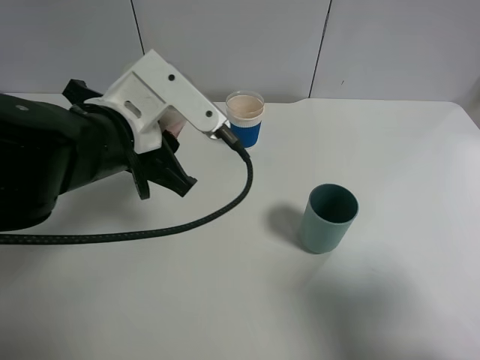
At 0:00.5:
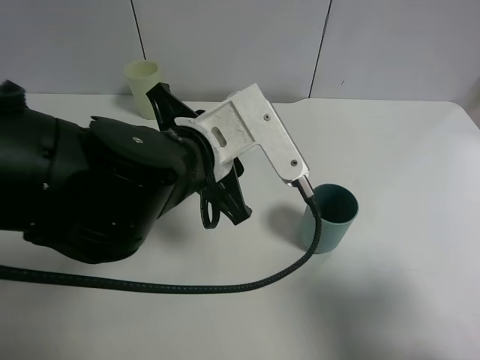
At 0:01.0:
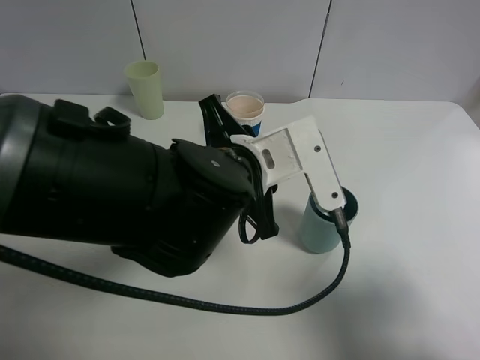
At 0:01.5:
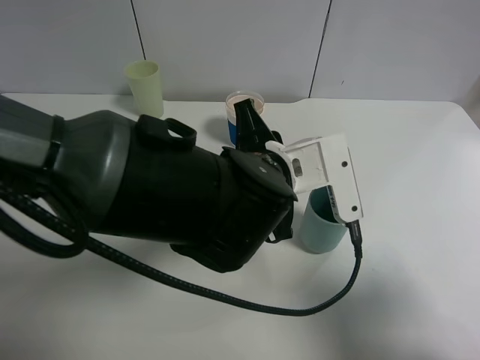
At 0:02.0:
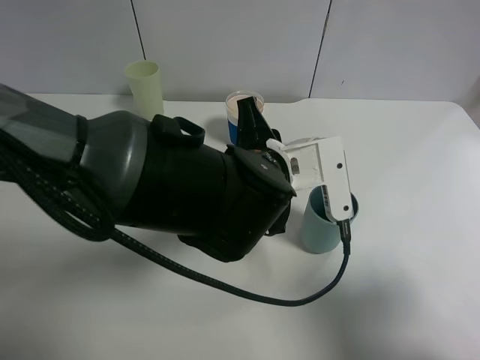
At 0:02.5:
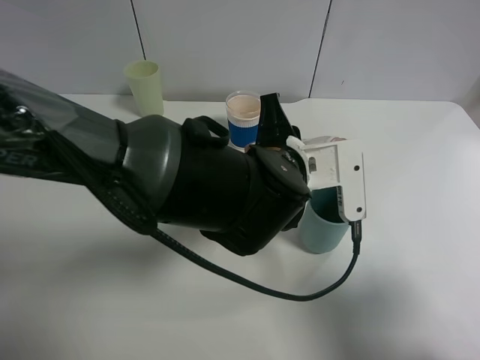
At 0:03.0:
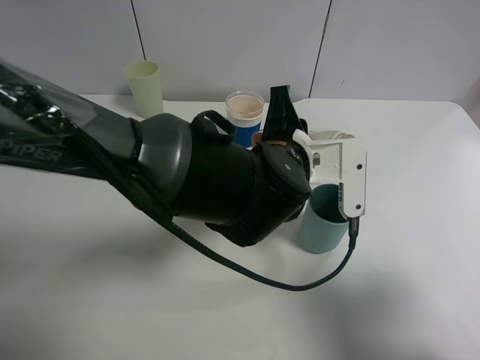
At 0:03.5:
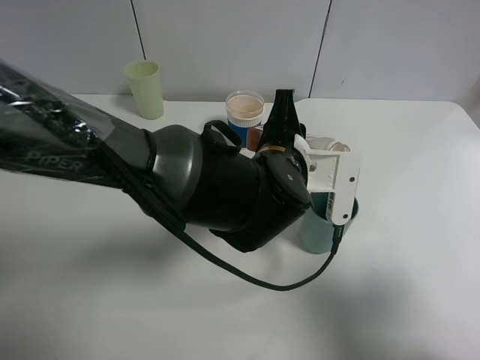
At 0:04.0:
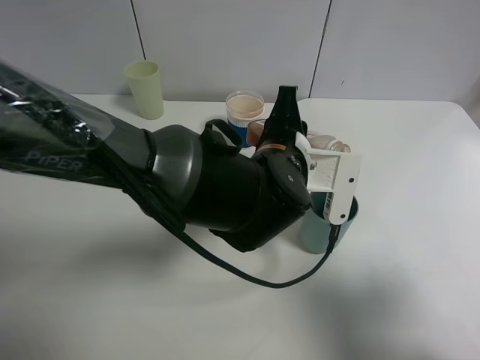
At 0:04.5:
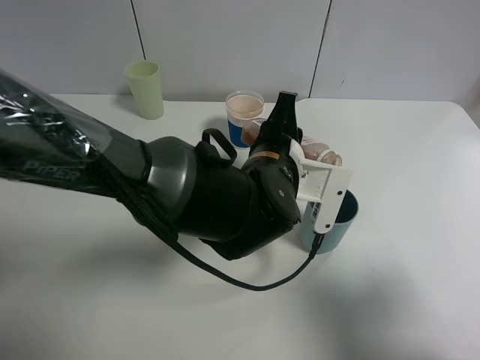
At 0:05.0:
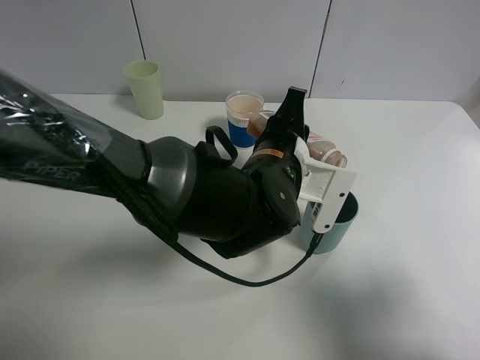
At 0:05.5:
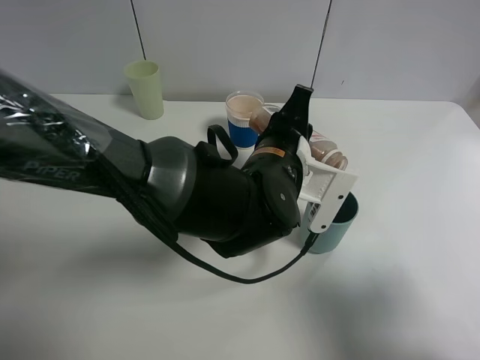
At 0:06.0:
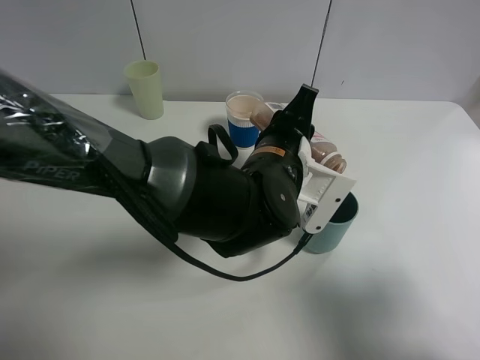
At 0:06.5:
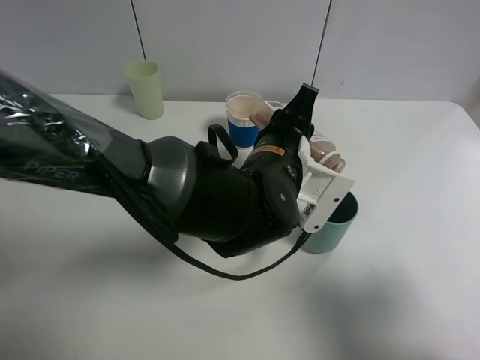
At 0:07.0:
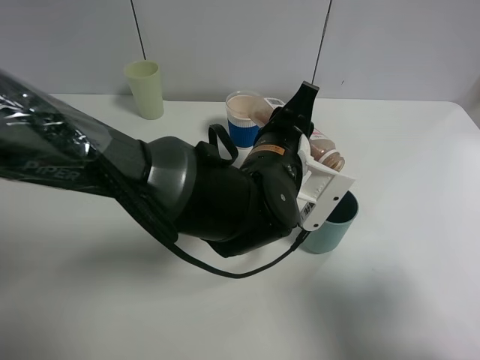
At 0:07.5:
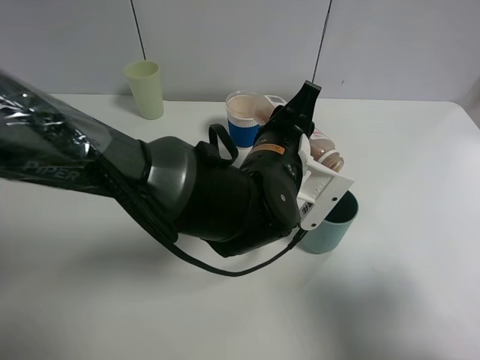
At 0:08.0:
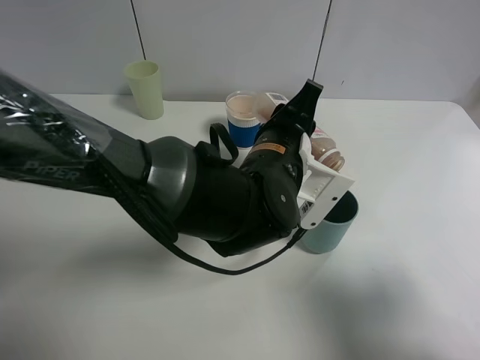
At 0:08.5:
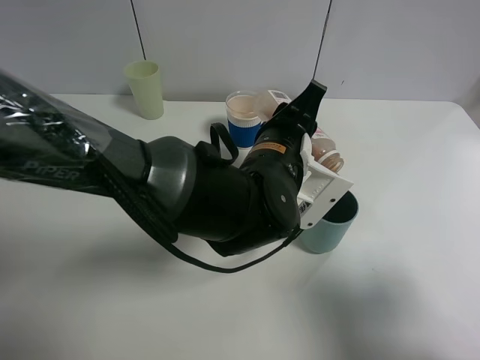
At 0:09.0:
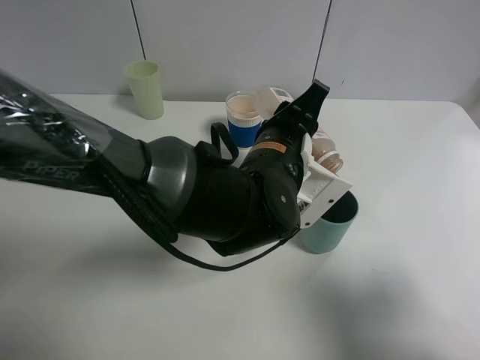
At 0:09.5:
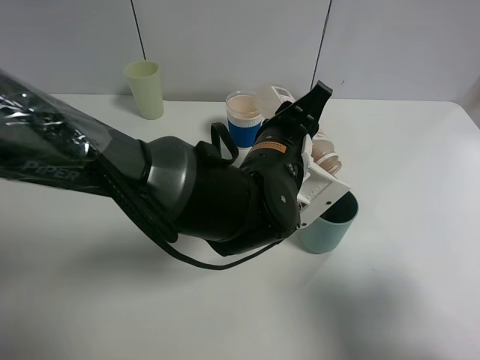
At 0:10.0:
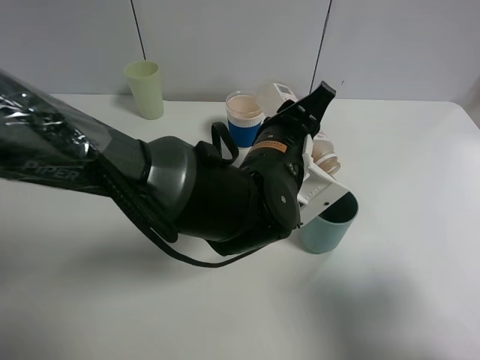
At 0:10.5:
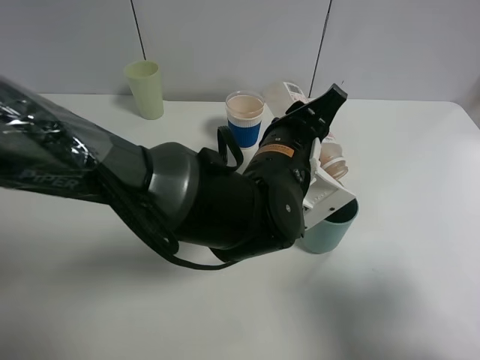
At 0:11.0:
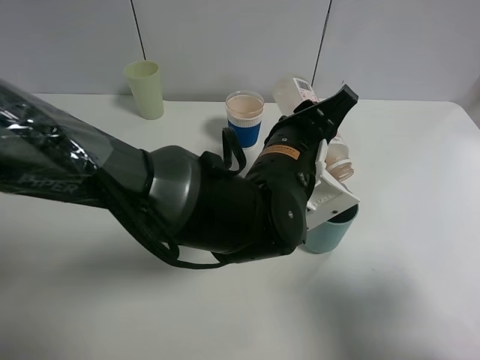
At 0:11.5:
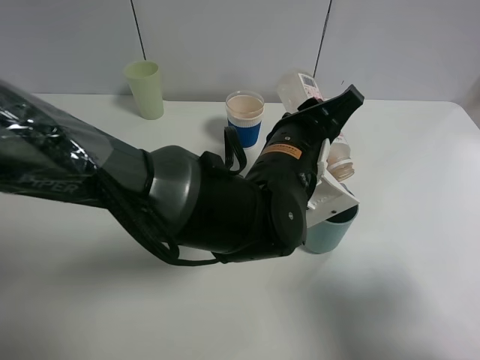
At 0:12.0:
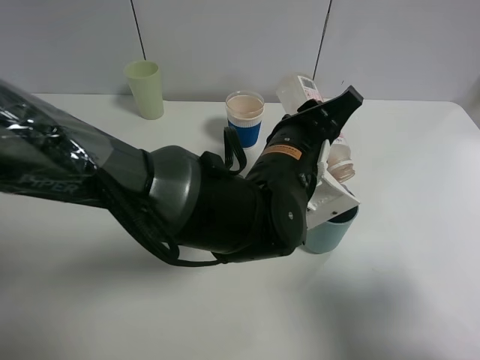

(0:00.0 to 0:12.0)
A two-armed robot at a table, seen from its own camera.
Task of the whole recording: use a clamp to hold the bottle of the drink, pour the beverage into a random cup, then clamp the cup containing the drink and pour the drink into another random cup.
0:00.0 - 0:02.0: The left gripper travels to the right by some 15 cm.
0:04.0 - 0:06.0: The grippers stay close to where they were, moving slightly.
0:06.0 - 0:10.0: The grippers make only small movements.
0:10.0 - 0:12.0: The grippers move only a little.

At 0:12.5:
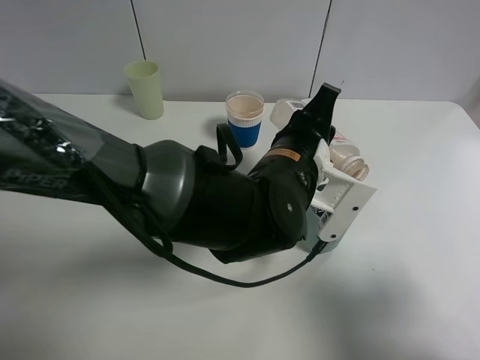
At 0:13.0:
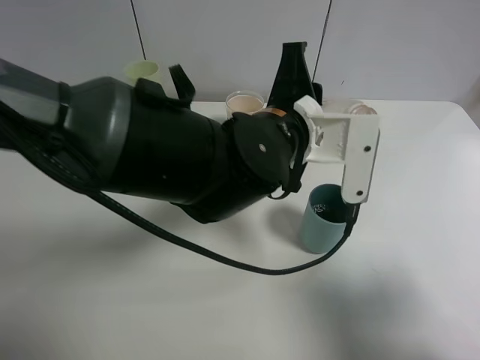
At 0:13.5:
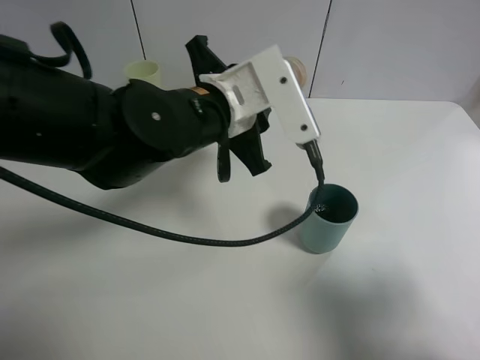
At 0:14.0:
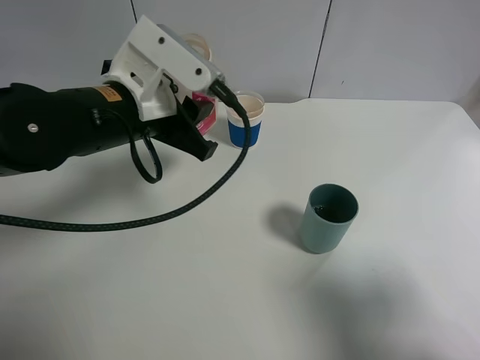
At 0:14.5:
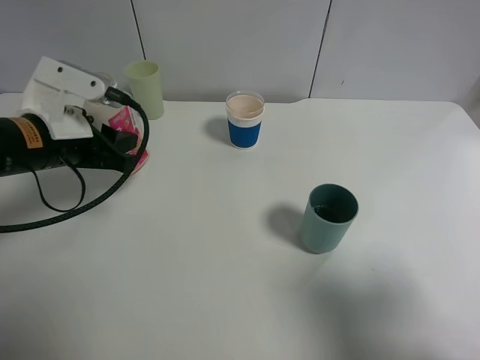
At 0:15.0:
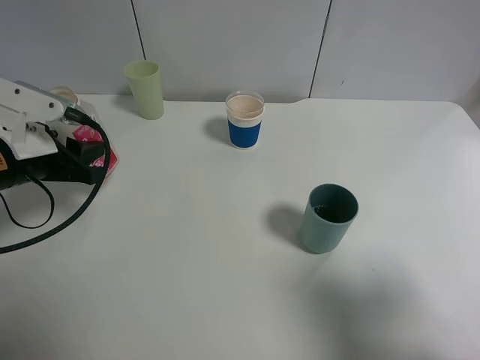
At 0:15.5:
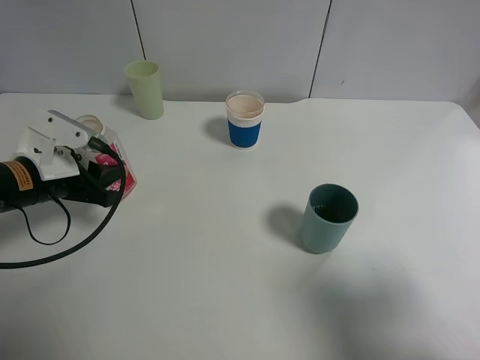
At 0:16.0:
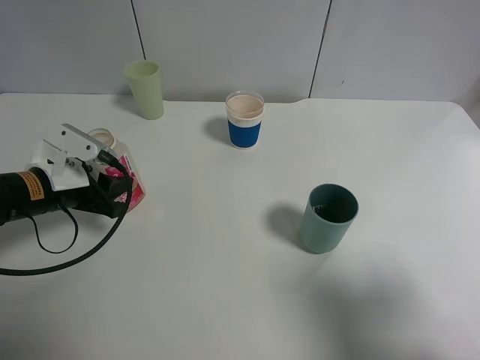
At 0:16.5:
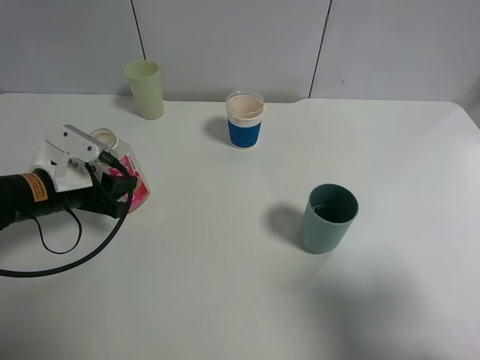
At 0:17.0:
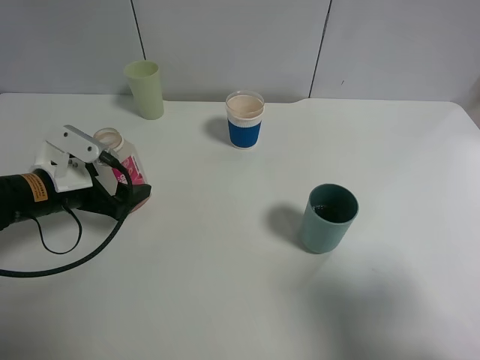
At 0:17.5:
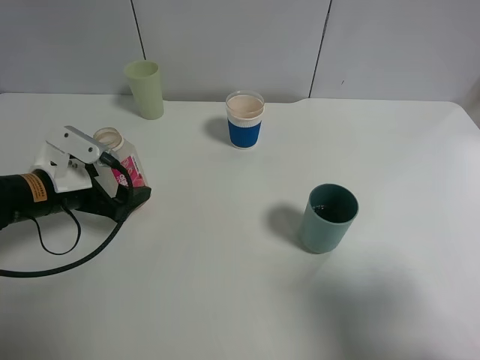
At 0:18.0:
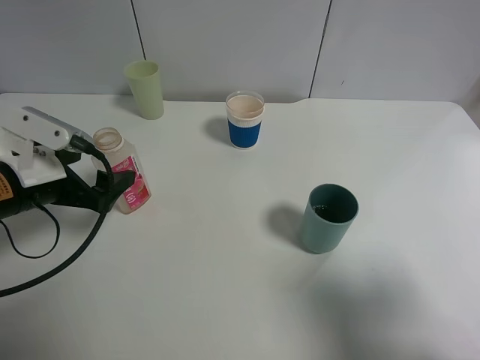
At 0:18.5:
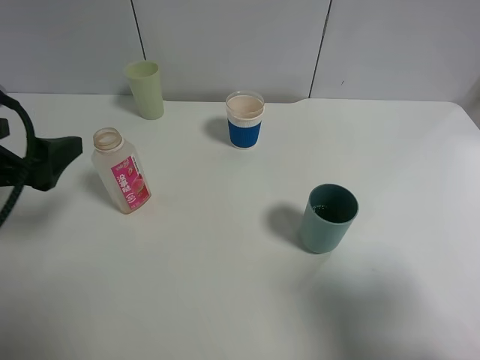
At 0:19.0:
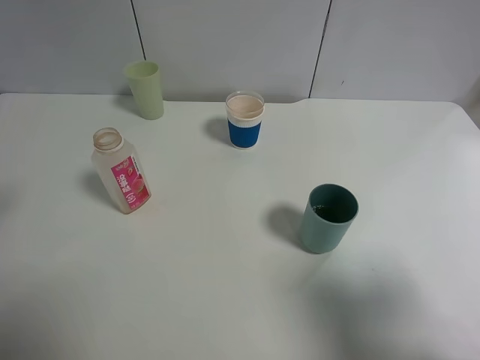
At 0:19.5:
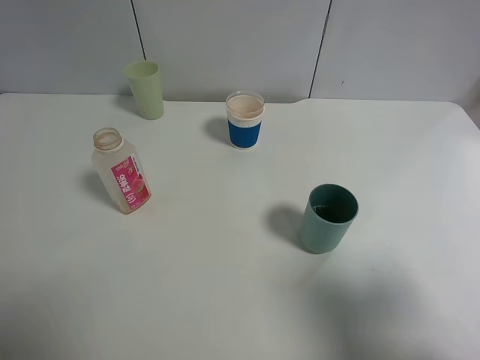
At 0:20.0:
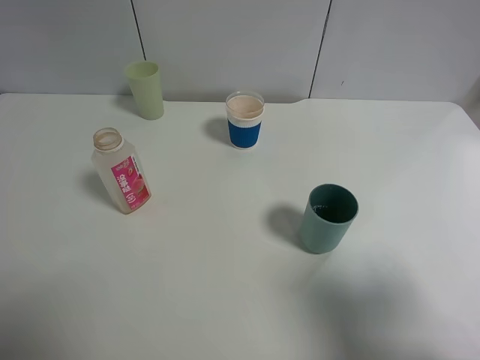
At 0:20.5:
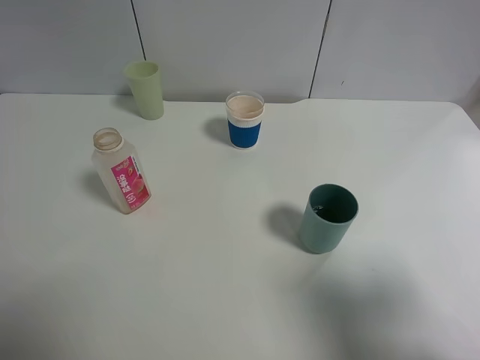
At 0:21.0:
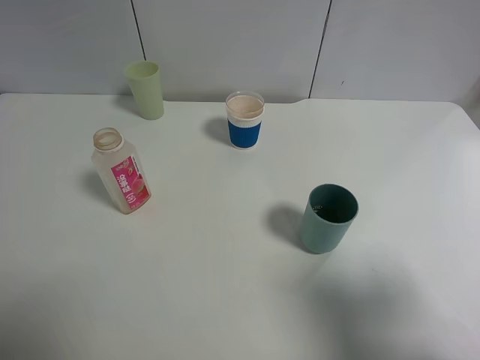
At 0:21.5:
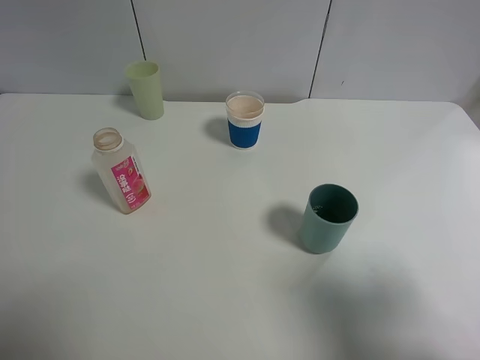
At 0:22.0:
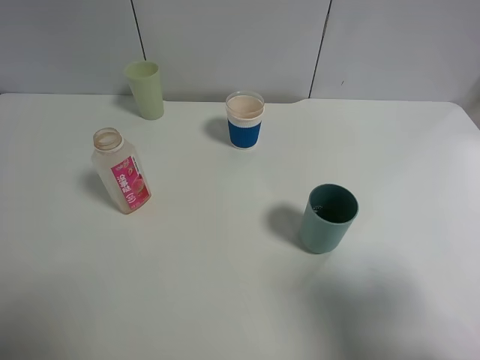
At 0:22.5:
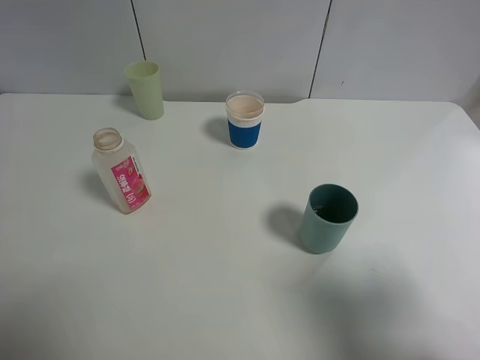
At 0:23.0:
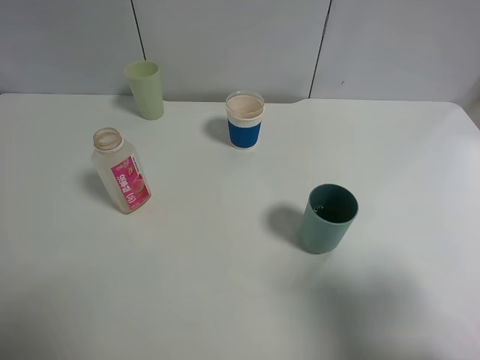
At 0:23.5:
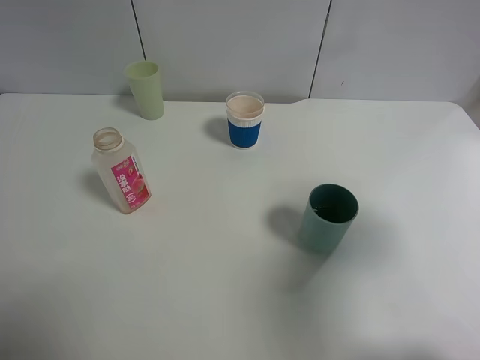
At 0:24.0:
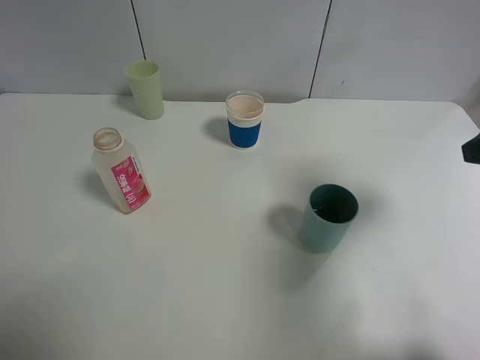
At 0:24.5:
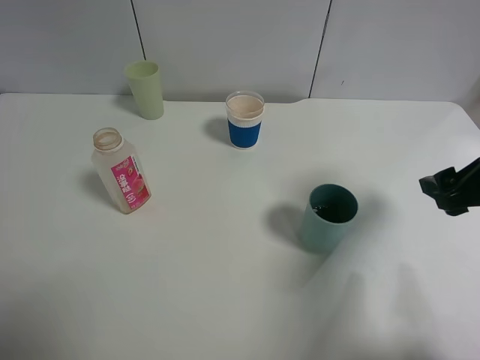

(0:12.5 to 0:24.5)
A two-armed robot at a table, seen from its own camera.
Task of the whole recording: use a clamp to hold the bottle of the drink, pour the beverage into a random cup, then clamp the cup containing the drink and pour the drink into another random cup.
Step, 0:13.0 - 0:18.0: Place the drink bottle on the table with left gripper.
0:12.5 - 0:14.5: The left gripper is displaced to the left by some 25 cm.
0:14.5 - 0:16.5: The left gripper heads downward, covering roughly 10 cm.
0:16.5 - 0:18.5: The left gripper heads upward and backward, covering some 15 cm, and opens its fingers.
0:18.5 - 0:20.5: The left gripper is displaced backward and upward by approximately 20 cm.
0:22.5 - 0:24.5: The right gripper is displaced forward by some 15 cm.

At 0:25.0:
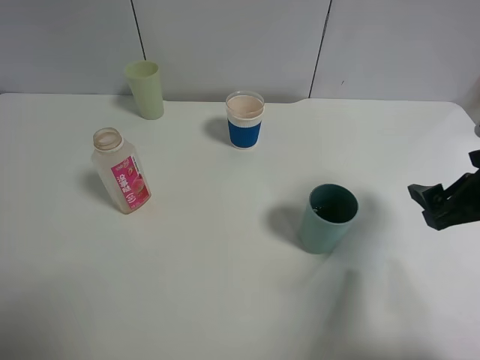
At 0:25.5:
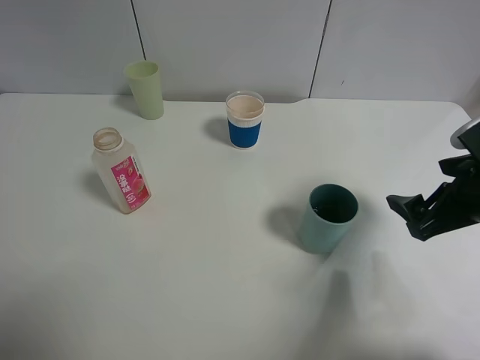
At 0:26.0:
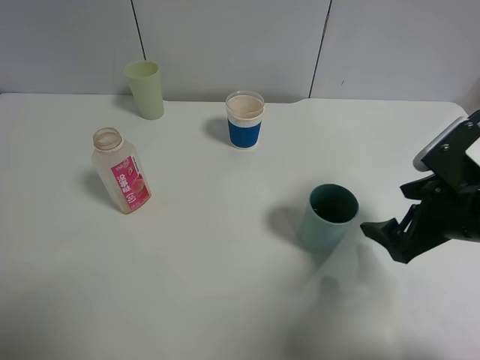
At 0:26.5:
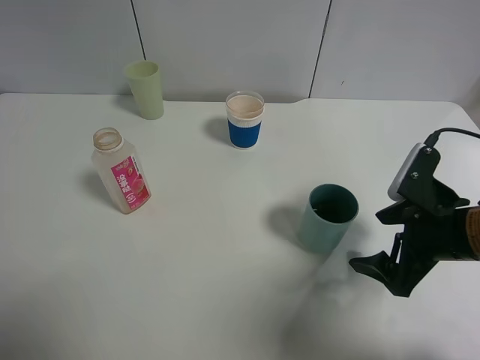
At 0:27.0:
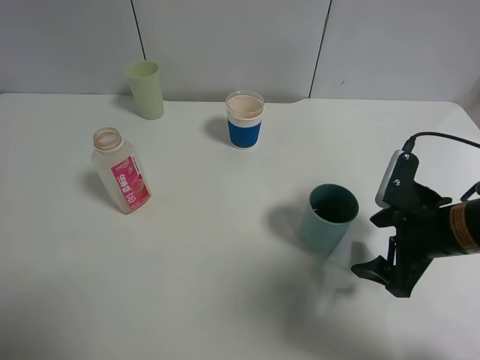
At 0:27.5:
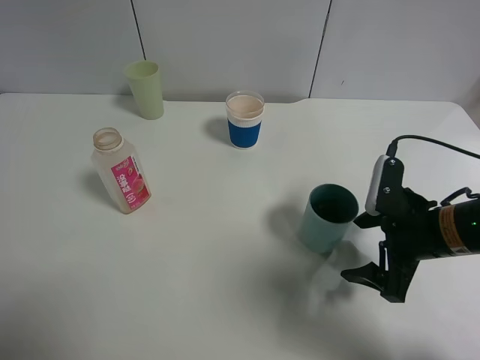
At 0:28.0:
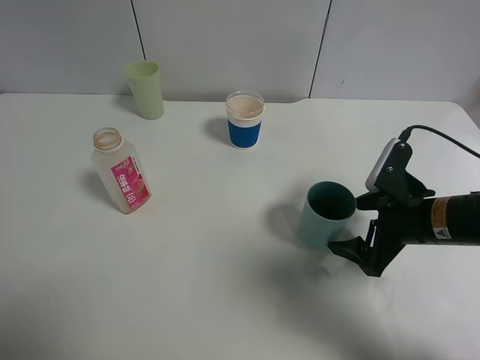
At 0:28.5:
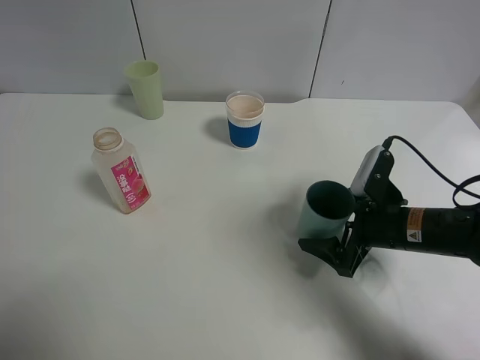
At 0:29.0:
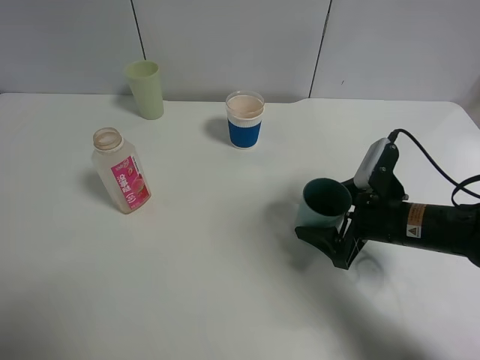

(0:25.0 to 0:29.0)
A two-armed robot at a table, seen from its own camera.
Task of the whole recording: use a clamp to hold the bottle of the drink, pour the beverage into a random cup, then clamp the cup containing the drink and pour the drink into another random cup.
0:25.0 - 0:27.0: The right gripper is displaced downward by roughly 5 cm.
0:27.0 - 0:29.0: The right gripper ends up about 5 cm from where it was.
